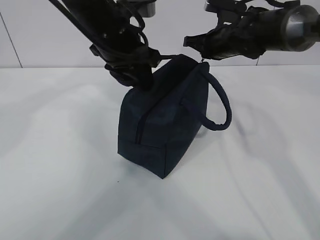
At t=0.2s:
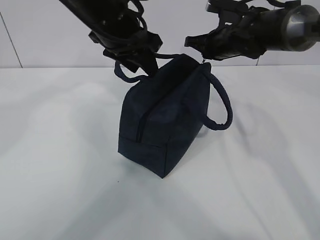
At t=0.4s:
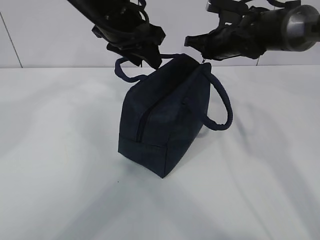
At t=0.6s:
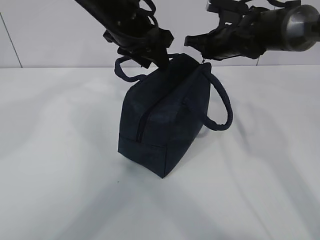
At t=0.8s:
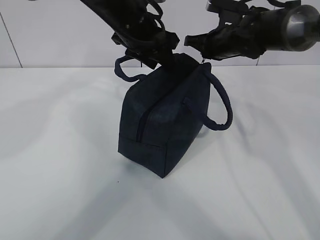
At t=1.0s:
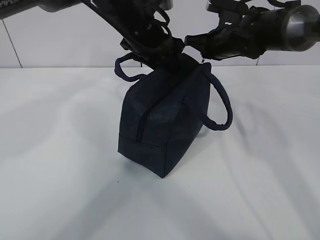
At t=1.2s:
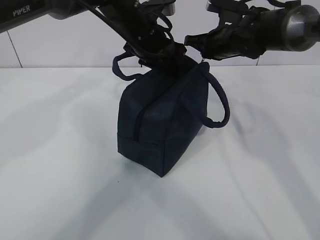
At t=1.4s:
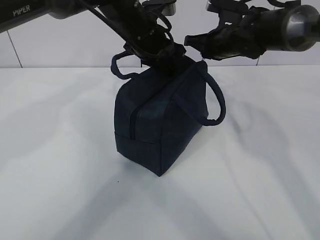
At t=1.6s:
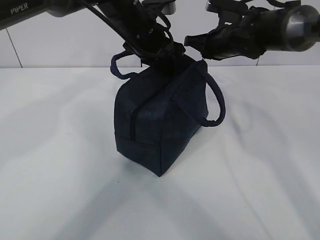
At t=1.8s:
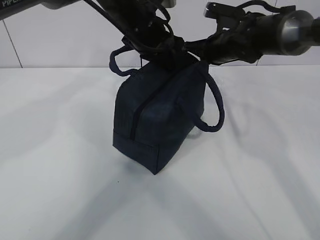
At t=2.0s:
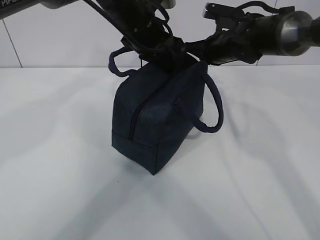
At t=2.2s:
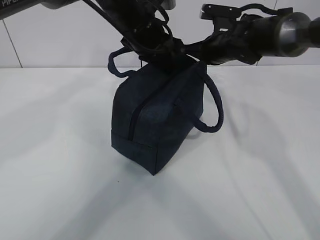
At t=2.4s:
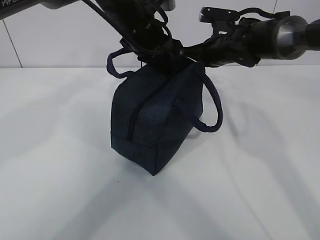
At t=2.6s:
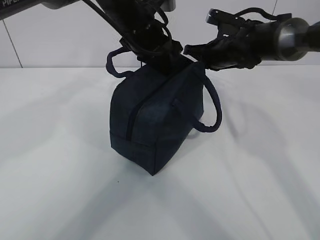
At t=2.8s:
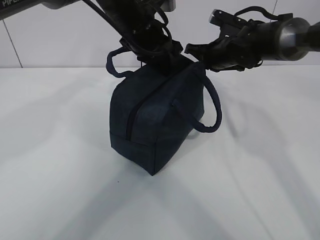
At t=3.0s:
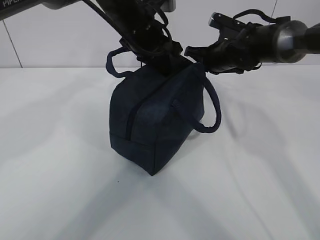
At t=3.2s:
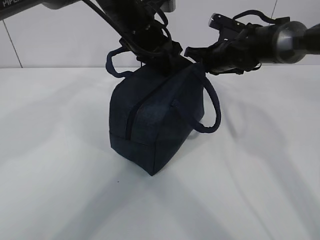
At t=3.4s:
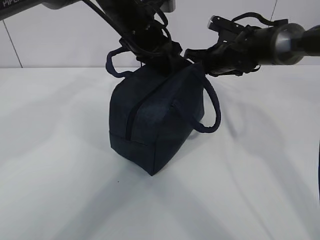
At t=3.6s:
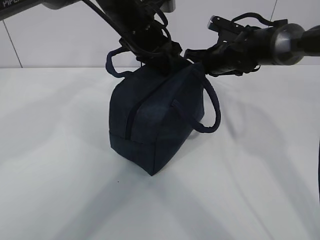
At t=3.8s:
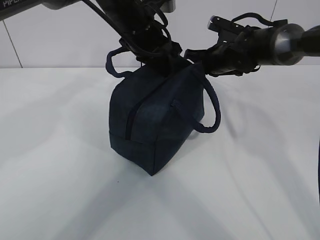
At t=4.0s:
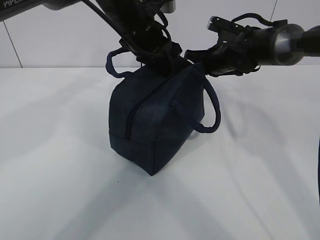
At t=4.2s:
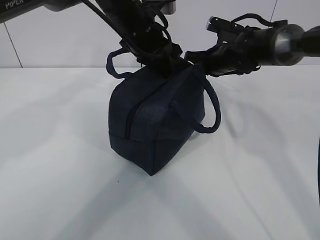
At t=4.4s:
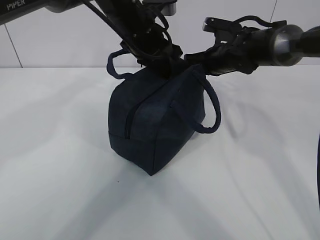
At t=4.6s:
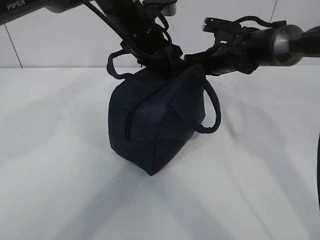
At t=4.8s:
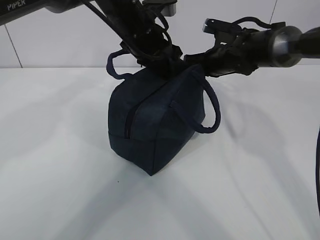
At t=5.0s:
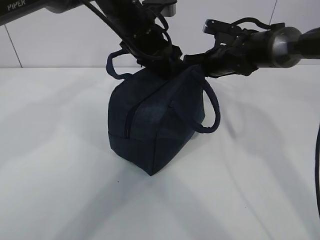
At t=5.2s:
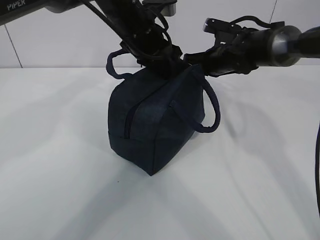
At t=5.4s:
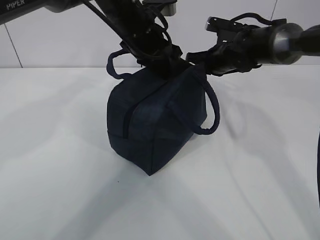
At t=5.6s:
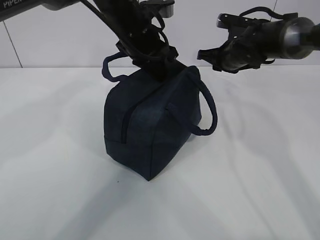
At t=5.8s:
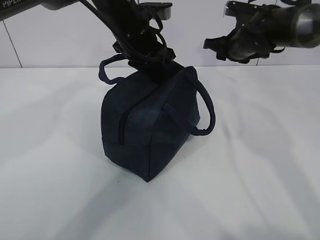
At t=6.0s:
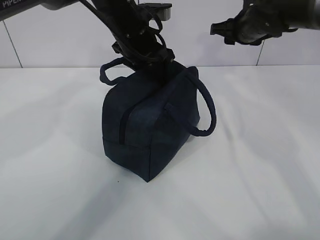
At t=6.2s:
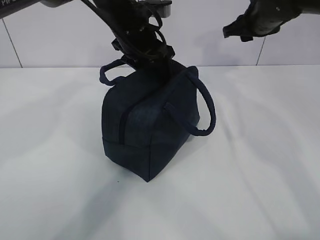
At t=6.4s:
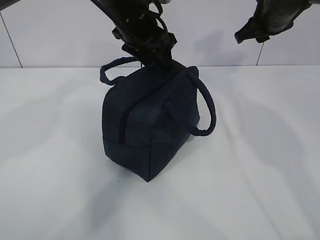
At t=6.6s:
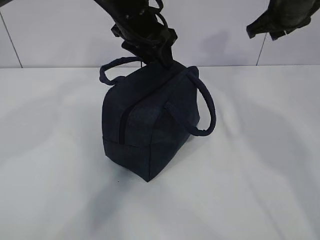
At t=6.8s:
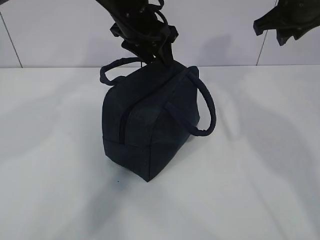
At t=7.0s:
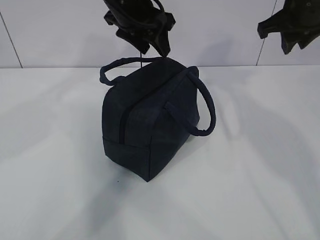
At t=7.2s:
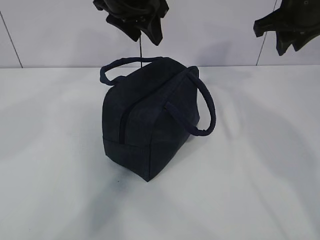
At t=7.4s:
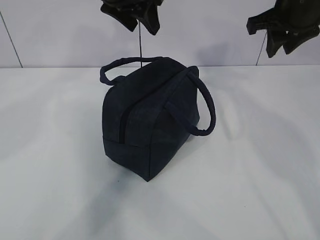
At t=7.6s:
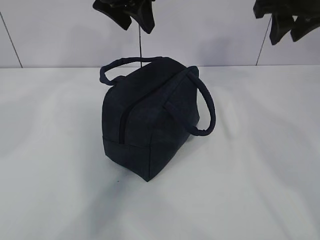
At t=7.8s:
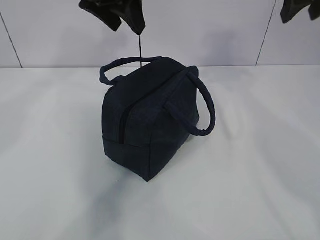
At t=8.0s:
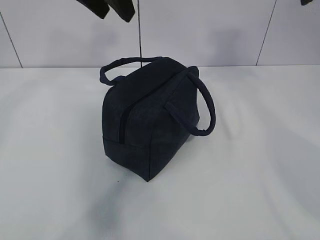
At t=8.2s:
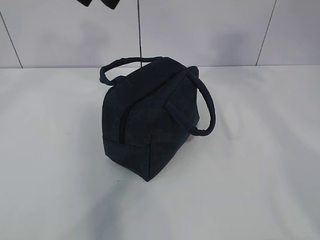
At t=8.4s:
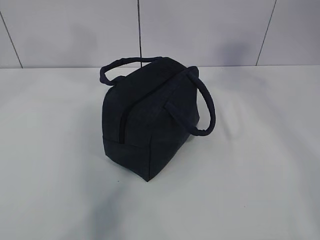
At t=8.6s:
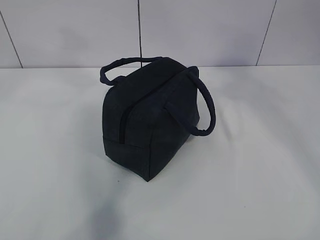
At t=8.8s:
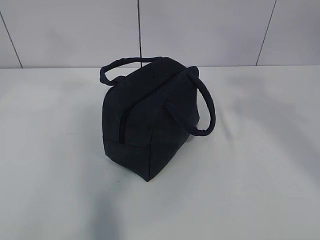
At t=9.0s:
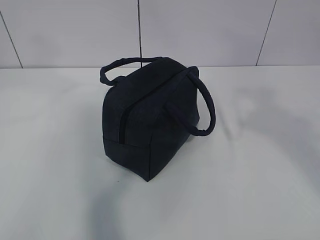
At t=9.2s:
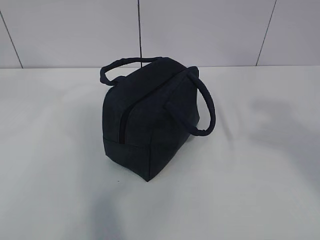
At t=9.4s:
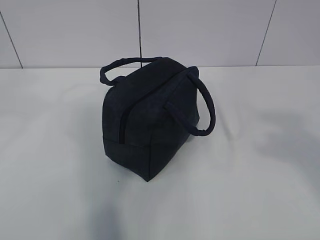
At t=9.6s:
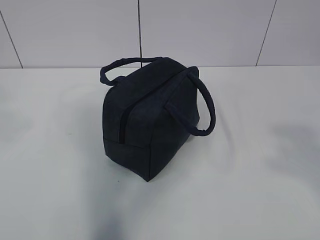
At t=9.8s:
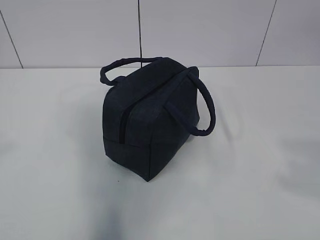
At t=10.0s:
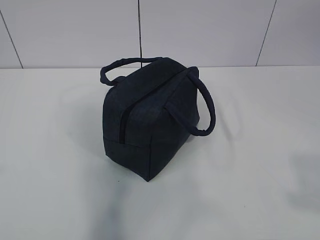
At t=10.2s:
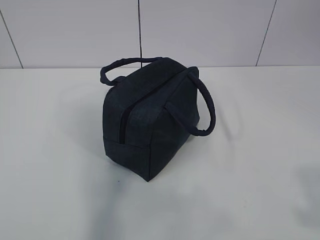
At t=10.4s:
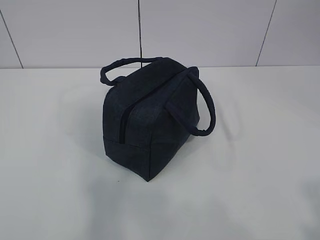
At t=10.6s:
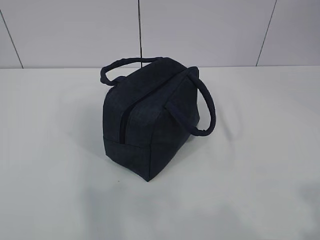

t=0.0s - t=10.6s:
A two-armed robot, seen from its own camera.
t=0.0s - t=1.6s: The left gripper moves forward, some 5 cm, and closes.
t=1.6s - t=4.6s: The grippers move only a little.
t=4.6s - t=6.0s: The right gripper moves upward, some 10 cm, and opens up; the left gripper opens its fingers.
t=6.0s - t=7.6s: The left gripper heads upward, covering approximately 10 cm; the right gripper travels backward and upward by about 15 cm.
t=7.6s - t=9.0s: The left gripper is displaced backward, upward and to the left by some 25 cm, while the right gripper shifts approximately 25 cm backward.
t=9.0s - t=10.6s: The right gripper travels downward and backward by about 20 cm, while the left gripper goes some 30 cm backward, downward and to the left.
